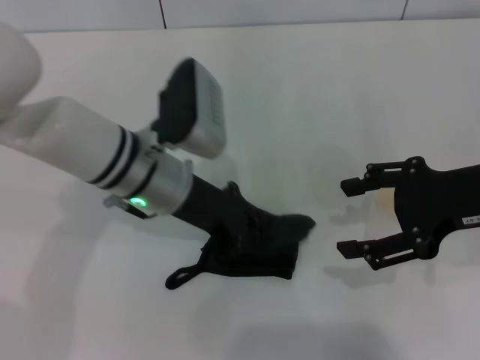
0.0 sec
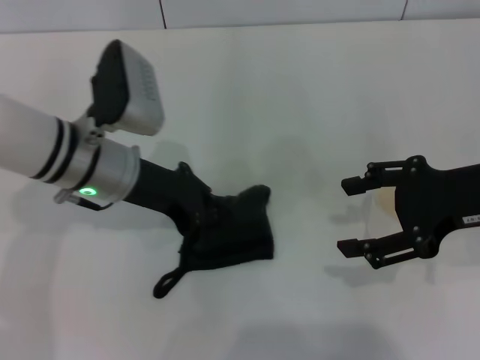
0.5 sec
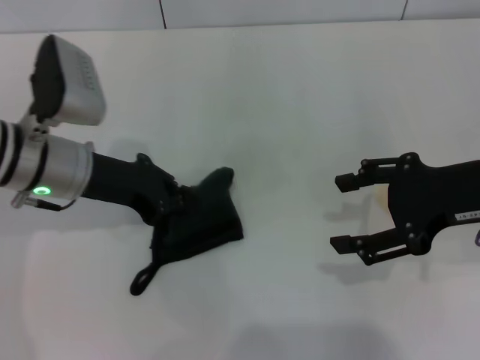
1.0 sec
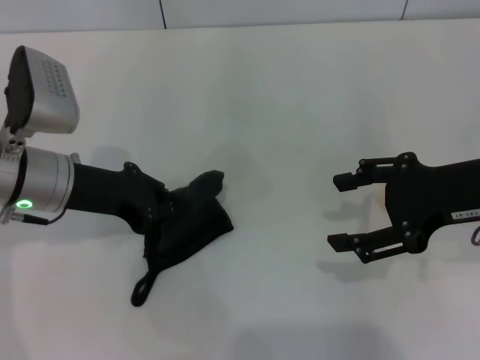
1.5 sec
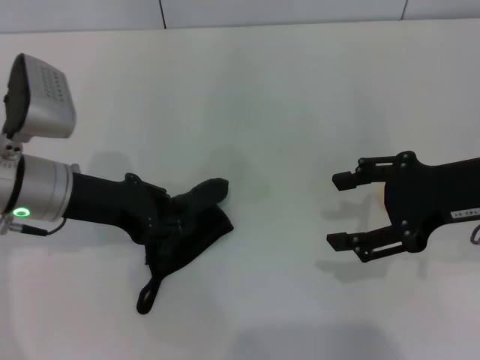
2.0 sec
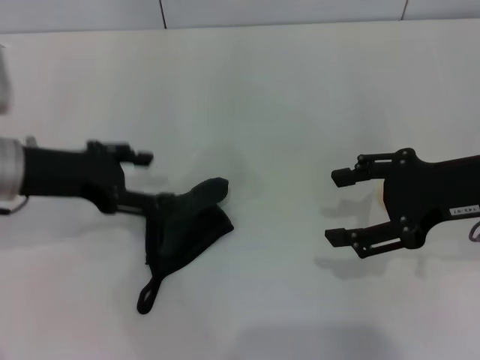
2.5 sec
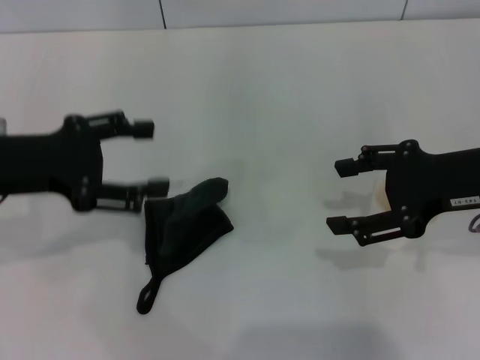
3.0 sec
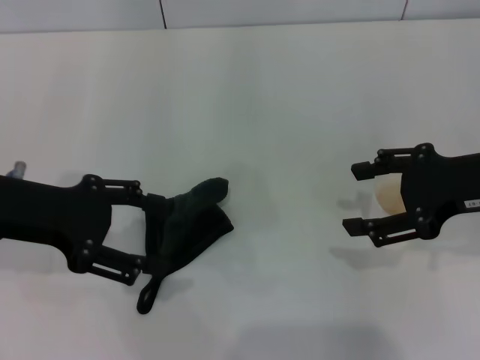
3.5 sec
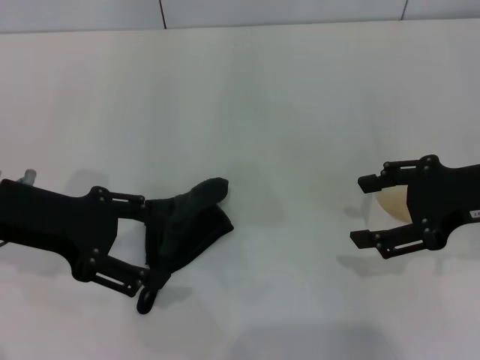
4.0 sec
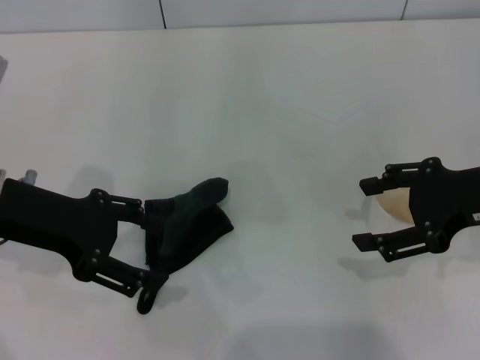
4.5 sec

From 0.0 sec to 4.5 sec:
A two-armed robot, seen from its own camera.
Step, from 2.0 sec to 3.0 sec: Place the rag on the table with the left gripper.
From 0.0 sec to 2.0 sec: The left gripper is displaced to the left by some 10 cm.
From 2.0 sec to 4.5 sec: The left gripper travels upward by roughly 5 cm, and opens up.

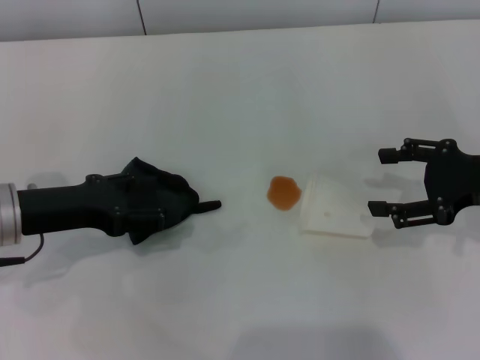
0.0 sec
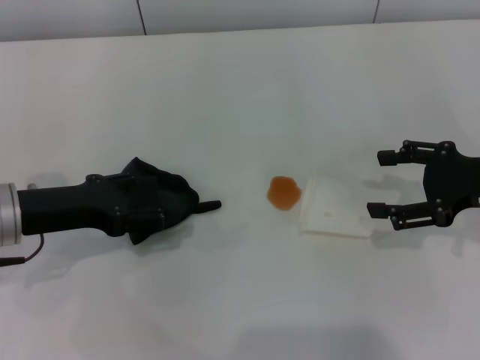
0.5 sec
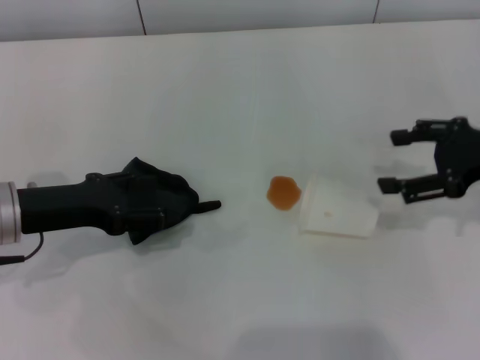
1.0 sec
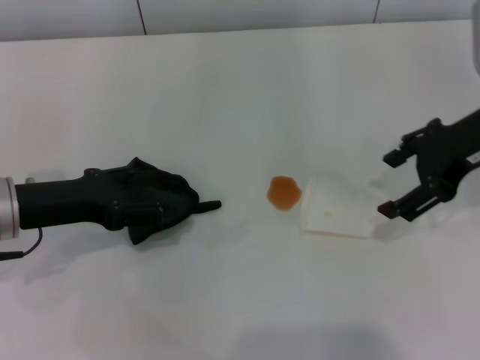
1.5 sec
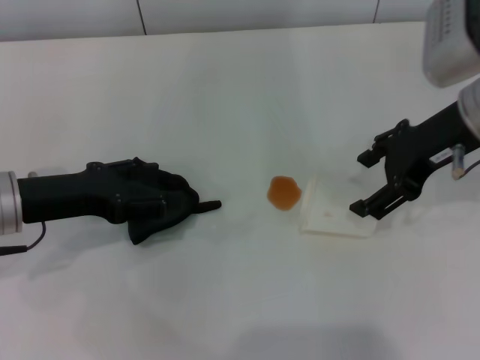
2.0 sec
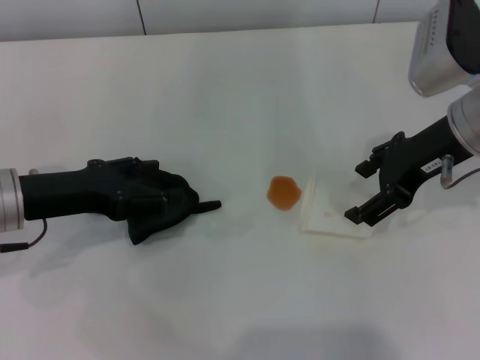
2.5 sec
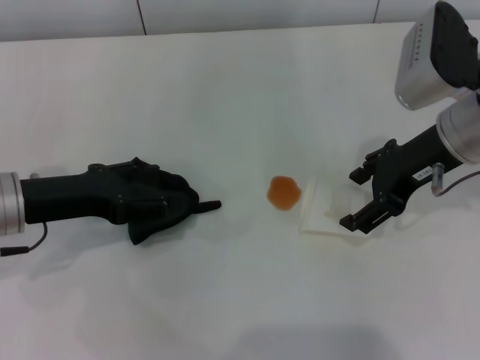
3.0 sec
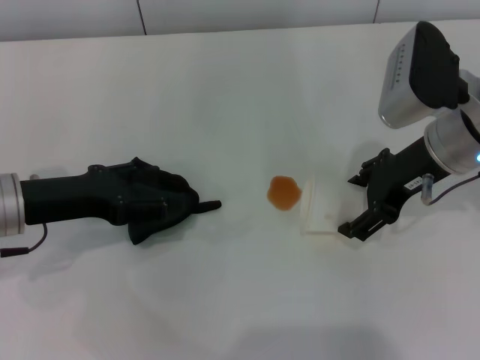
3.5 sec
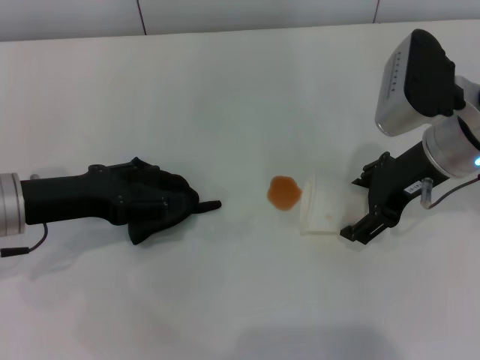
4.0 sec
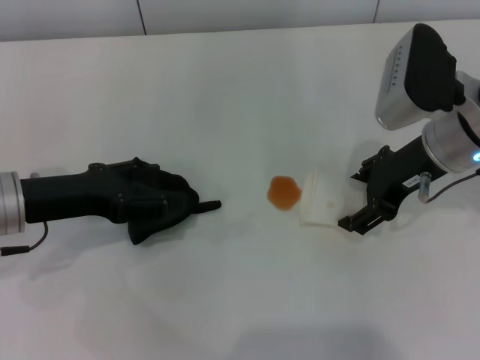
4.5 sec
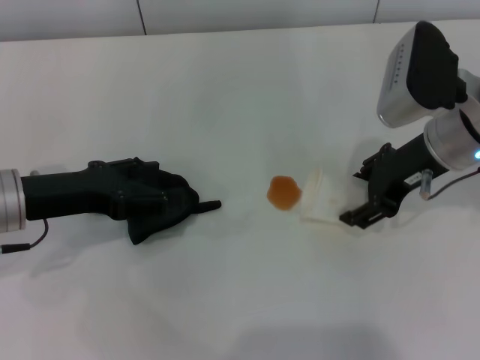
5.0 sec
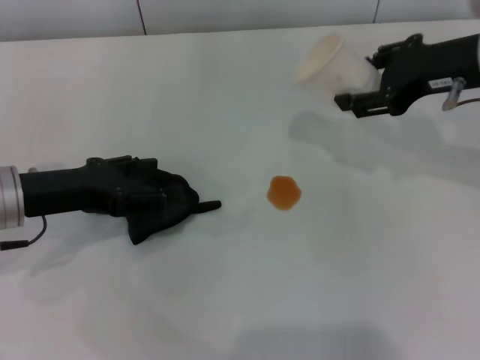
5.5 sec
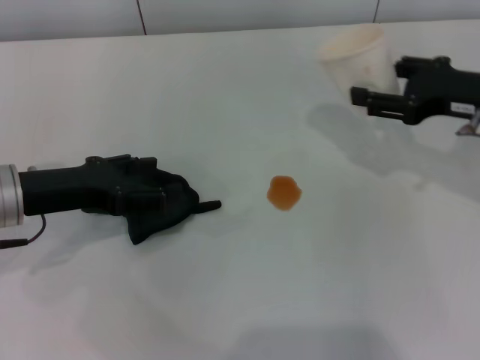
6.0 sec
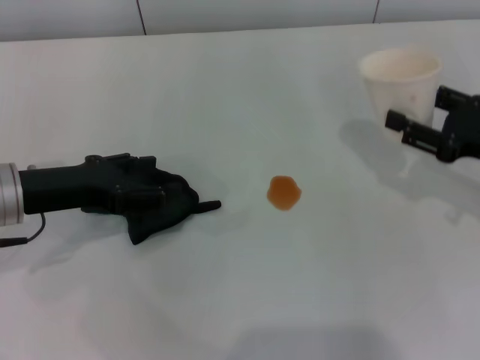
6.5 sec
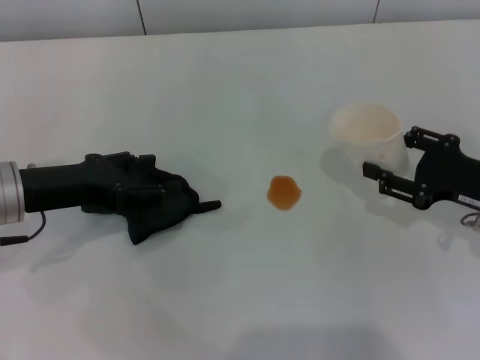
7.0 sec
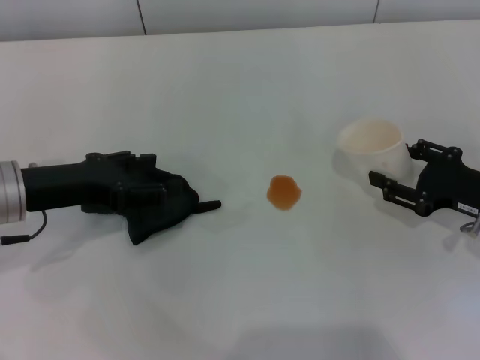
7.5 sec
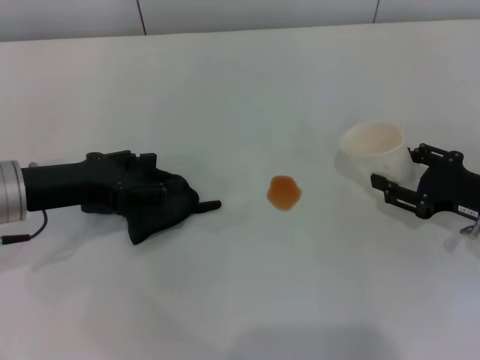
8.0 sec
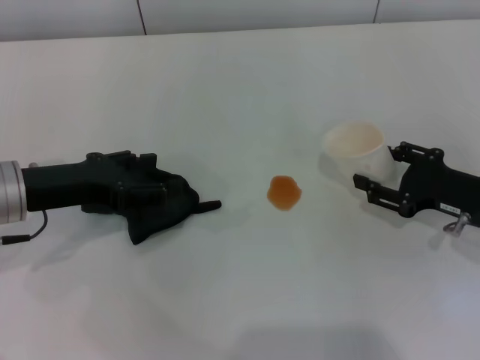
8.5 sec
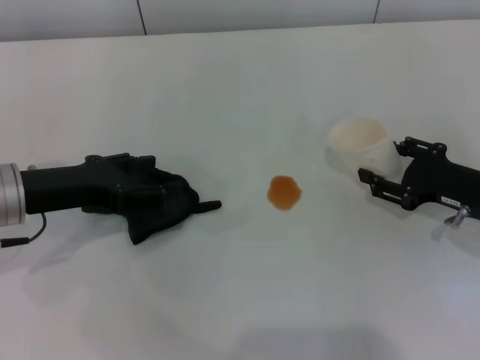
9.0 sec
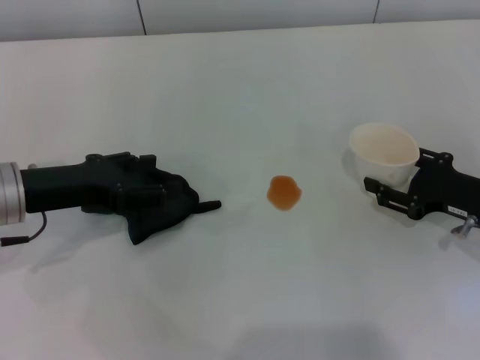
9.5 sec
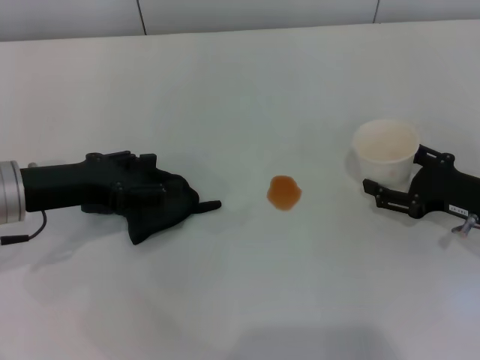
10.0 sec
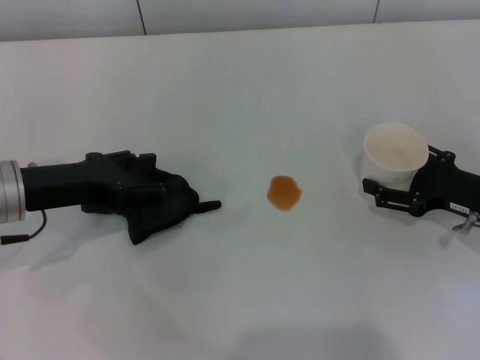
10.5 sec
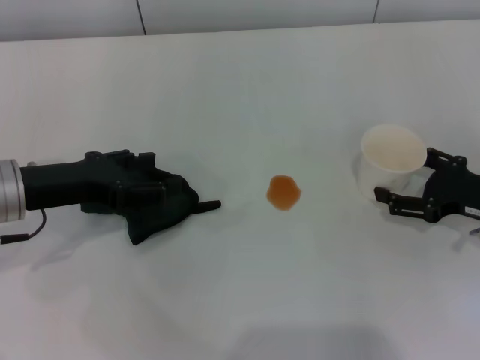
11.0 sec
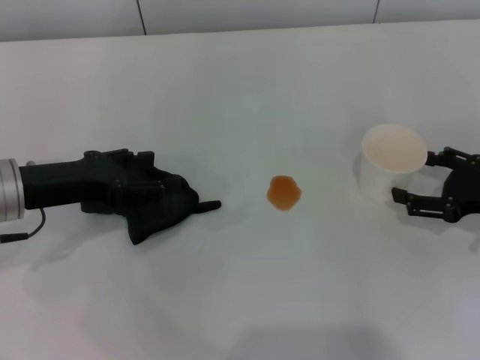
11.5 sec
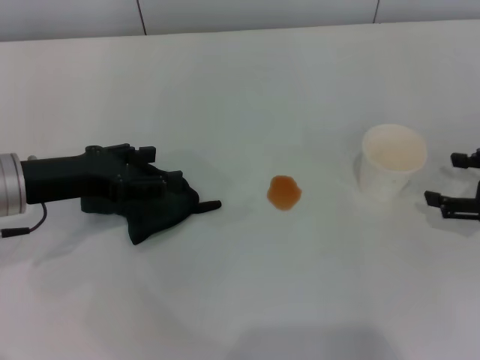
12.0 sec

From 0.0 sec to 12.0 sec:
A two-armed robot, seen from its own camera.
Step, from 0.0 sec to 4.5 sec: Grasp the paper cup with the right gripper.
Step, from 5.0 sec to 11.0 sec: Stand the paper cup upright with the right gripper.
From 0.0 sec to 2.0 sec: The right gripper heads to the left and upward, covering some 10 cm.
From 2.0 sec to 4.0 sec: The grippers stay close to where they were, moving slightly.
From 4.0 sec to 6.0 sec: The right gripper travels to the right by some 10 cm, and closes its fingers.
From 6.0 sec to 8.0 sec: The right gripper is displaced downward and backward by about 10 cm.
From 8.0 sec to 10.0 sec: The grippers move only a little.
From 10.0 sec to 12.0 sec: The right gripper is displaced to the right by approximately 5 cm, and opens up.

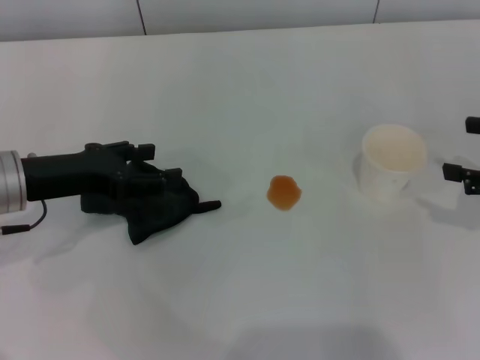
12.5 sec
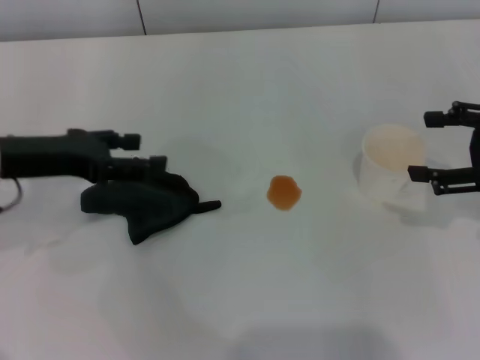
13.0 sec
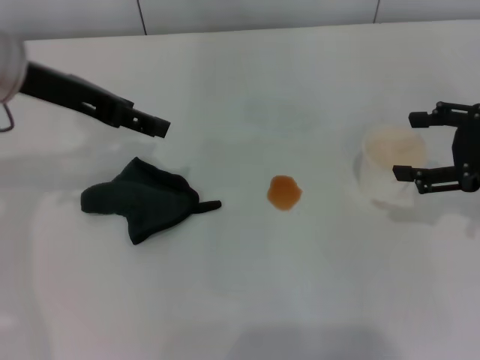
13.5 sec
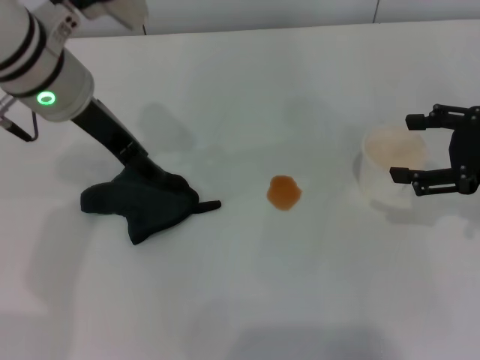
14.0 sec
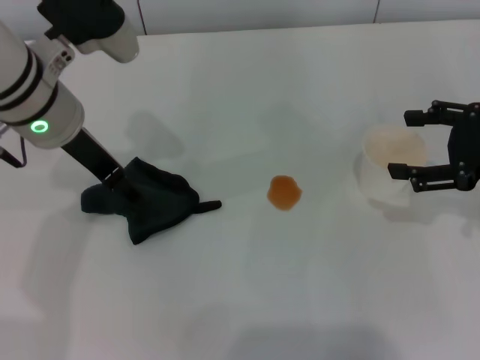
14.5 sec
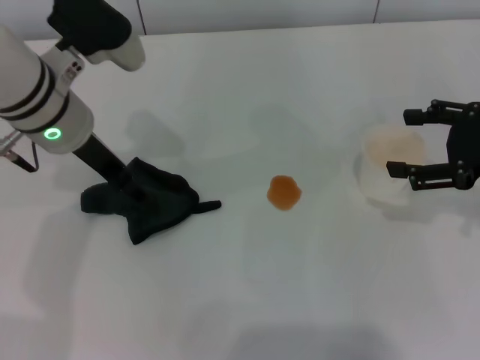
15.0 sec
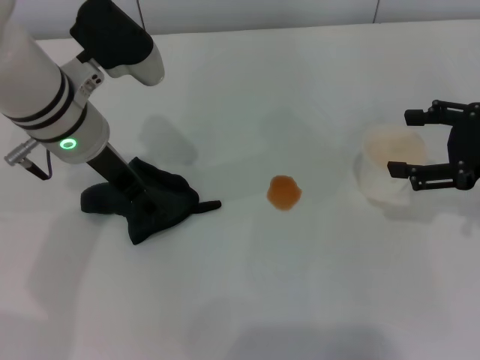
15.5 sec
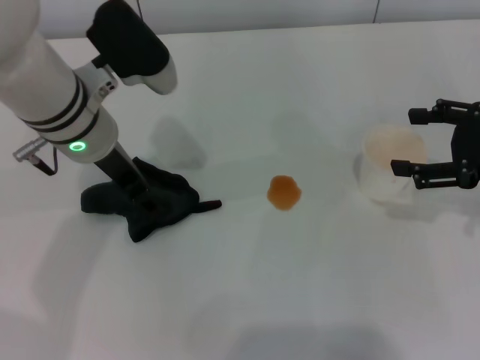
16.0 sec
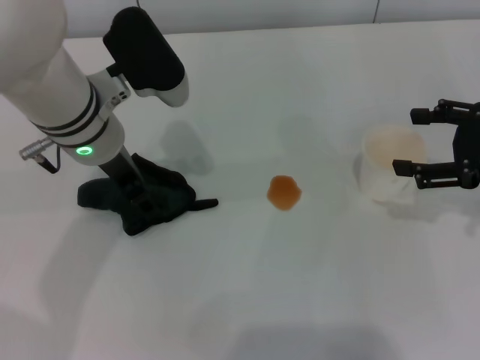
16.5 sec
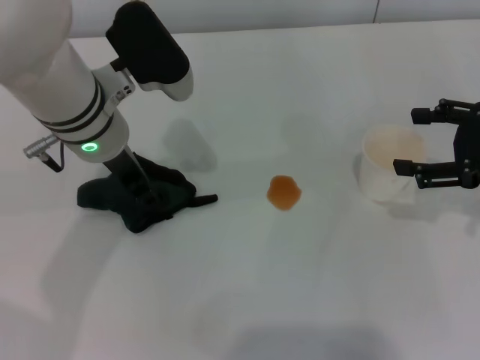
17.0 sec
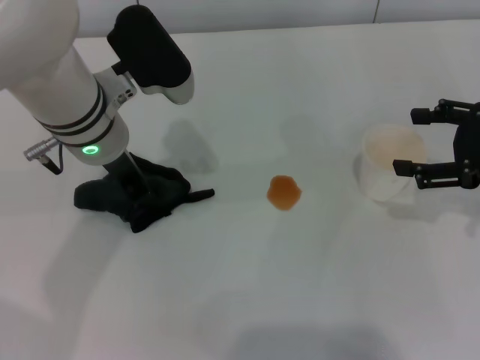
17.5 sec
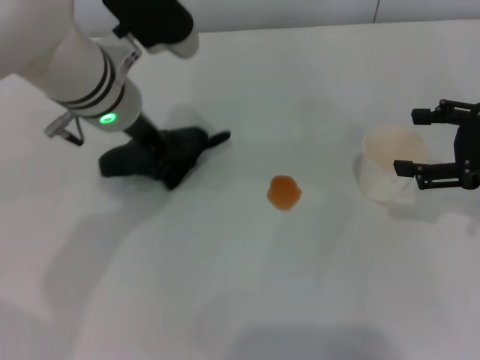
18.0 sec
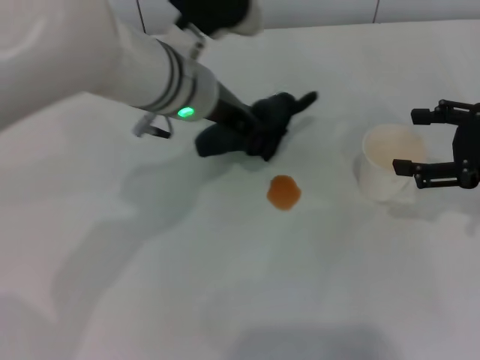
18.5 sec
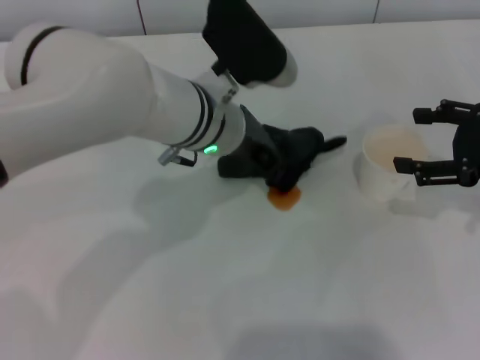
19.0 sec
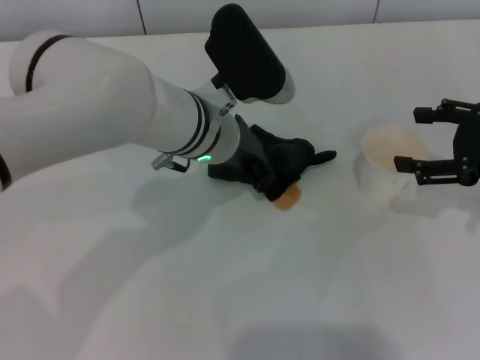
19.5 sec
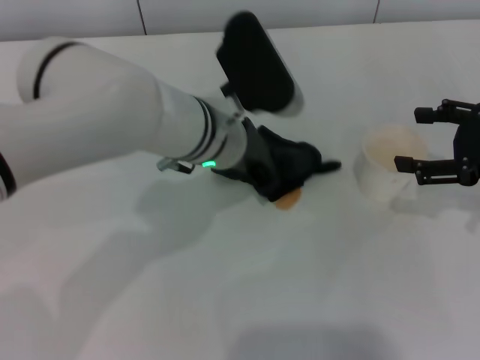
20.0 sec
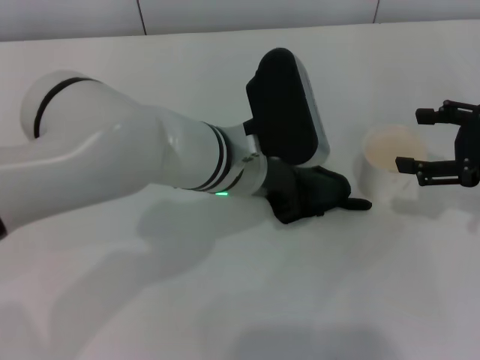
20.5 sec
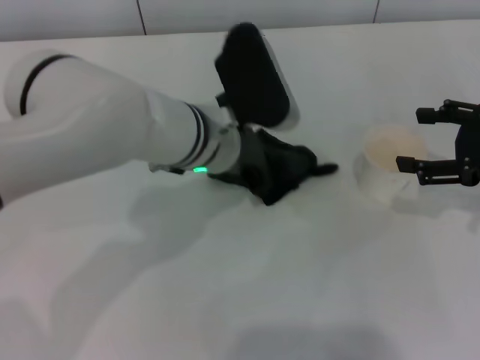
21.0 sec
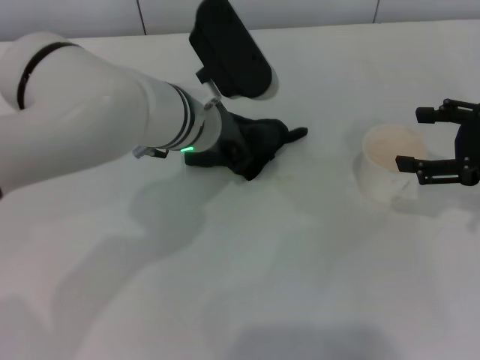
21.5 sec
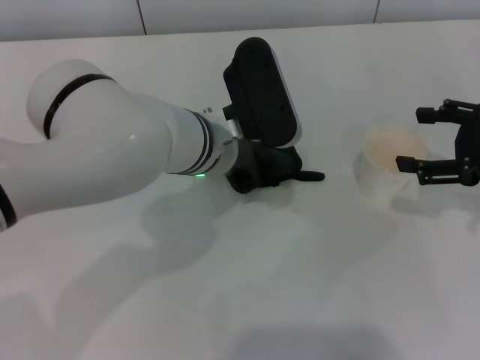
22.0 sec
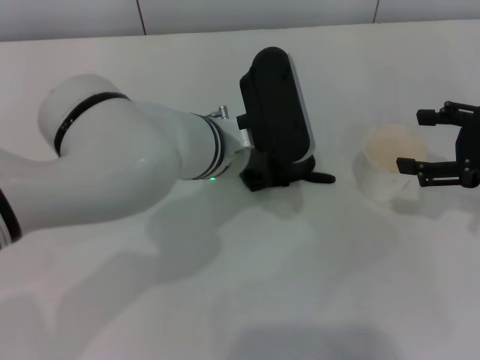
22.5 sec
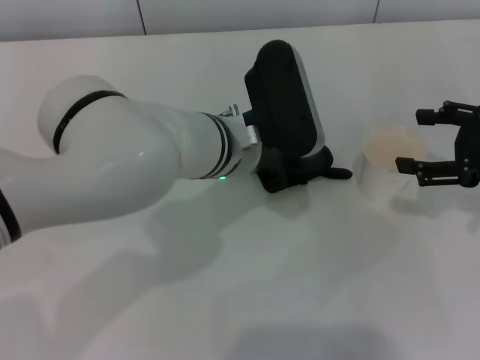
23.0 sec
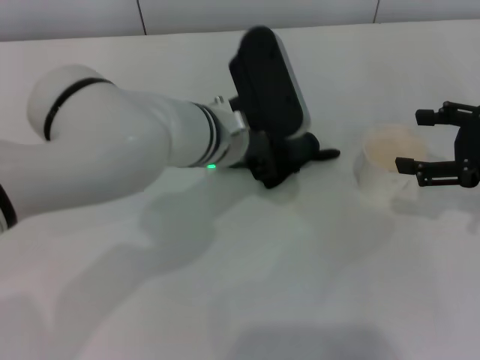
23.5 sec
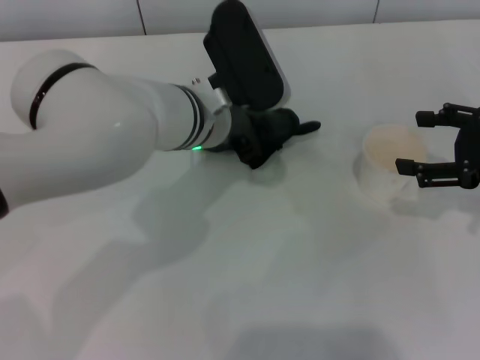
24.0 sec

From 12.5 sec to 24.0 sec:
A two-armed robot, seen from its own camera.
Step, from 12.5 sec to 17.0 sec: Grasp the rag with the left gripper.
From 12.5 sec to 14.5 sec: The left gripper is displaced to the right, upward and forward by approximately 15 cm, while the right gripper shifts by about 5 cm.
From 14.5 sec to 16.5 sec: The grippers move only a little.
From 16.5 sec to 18.5 sec: The left gripper heads to the right, covering approximately 5 cm, and closes.
From 20.0 sec to 24.0 sec: The grippers stay close to where they were, moving slightly.
